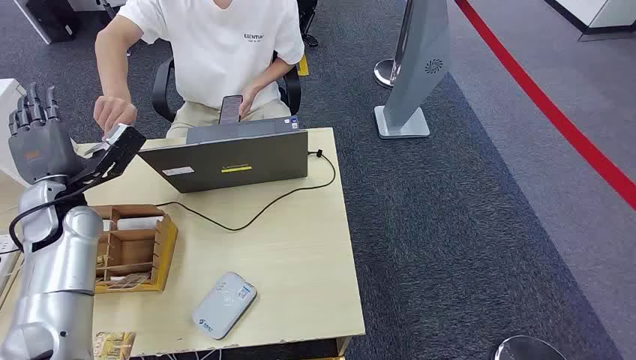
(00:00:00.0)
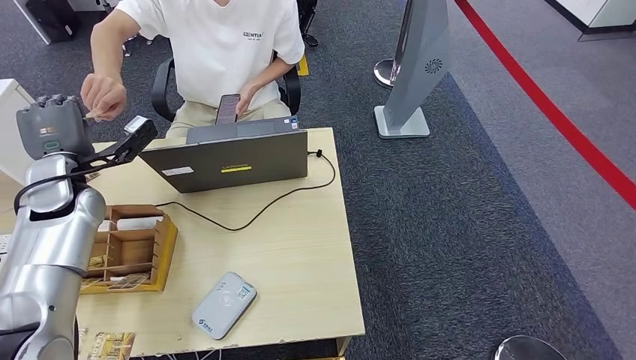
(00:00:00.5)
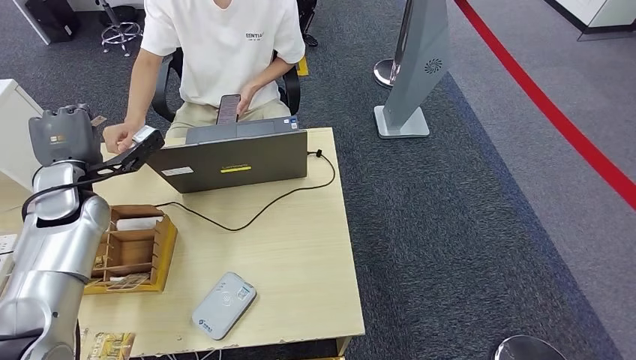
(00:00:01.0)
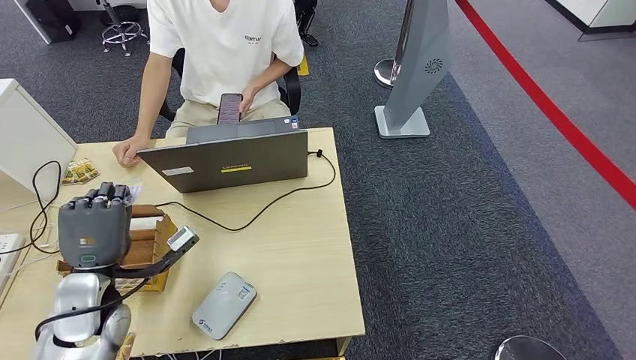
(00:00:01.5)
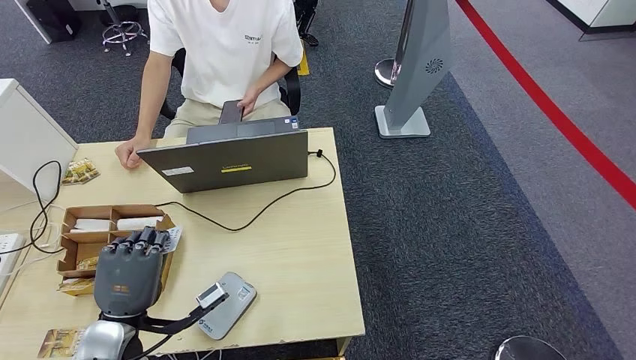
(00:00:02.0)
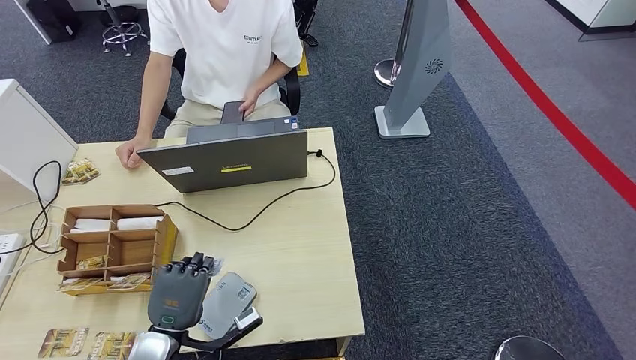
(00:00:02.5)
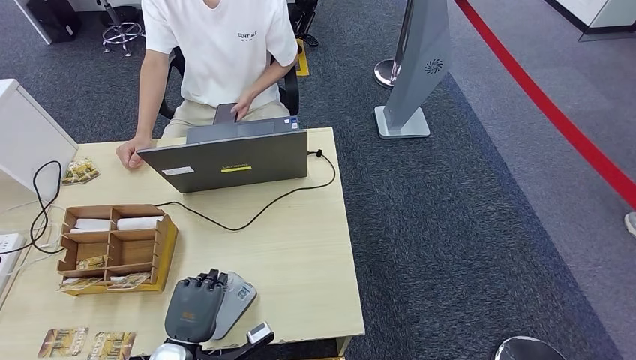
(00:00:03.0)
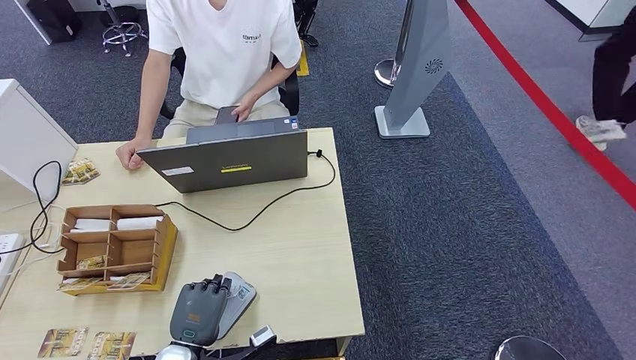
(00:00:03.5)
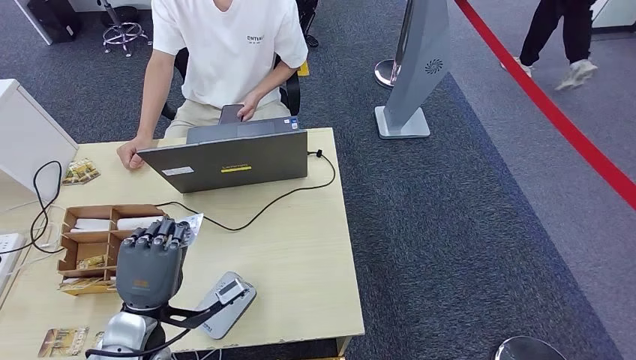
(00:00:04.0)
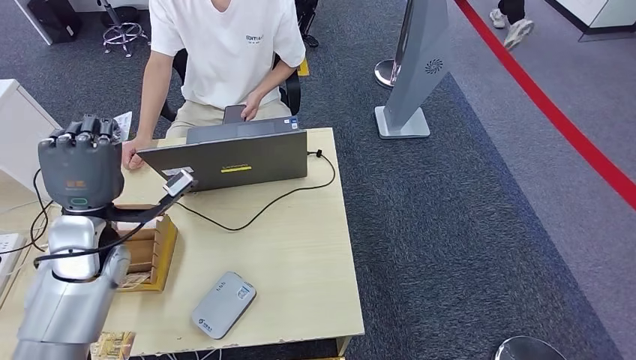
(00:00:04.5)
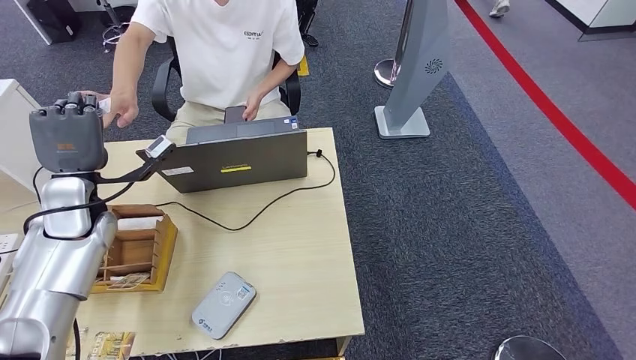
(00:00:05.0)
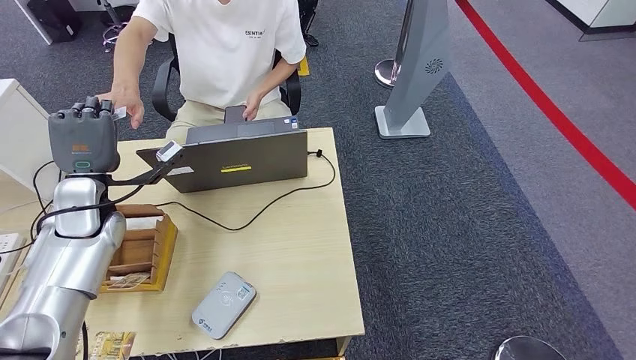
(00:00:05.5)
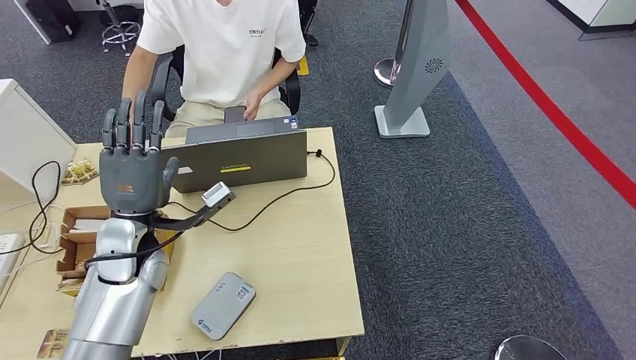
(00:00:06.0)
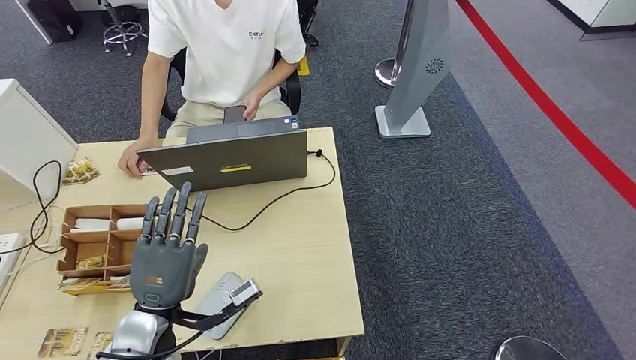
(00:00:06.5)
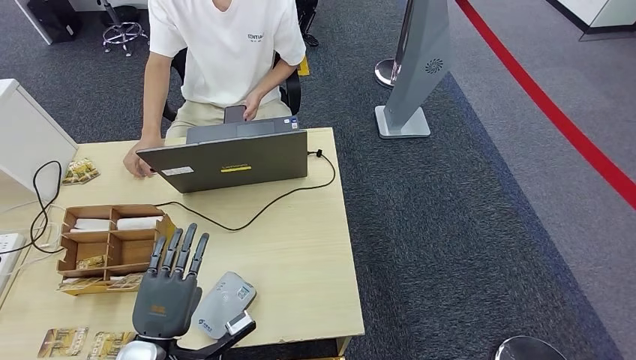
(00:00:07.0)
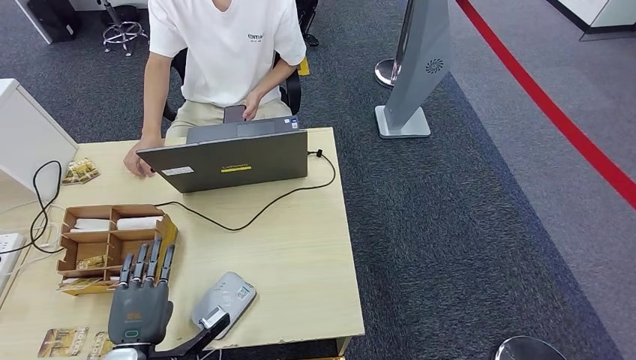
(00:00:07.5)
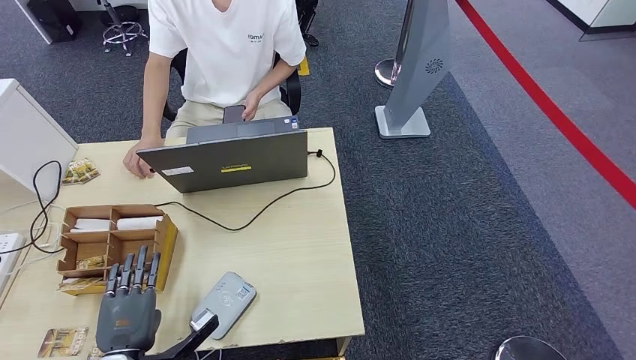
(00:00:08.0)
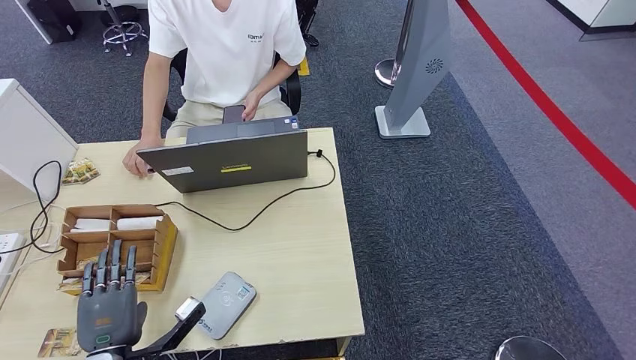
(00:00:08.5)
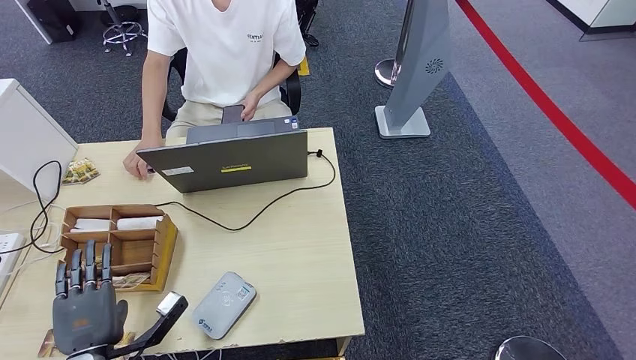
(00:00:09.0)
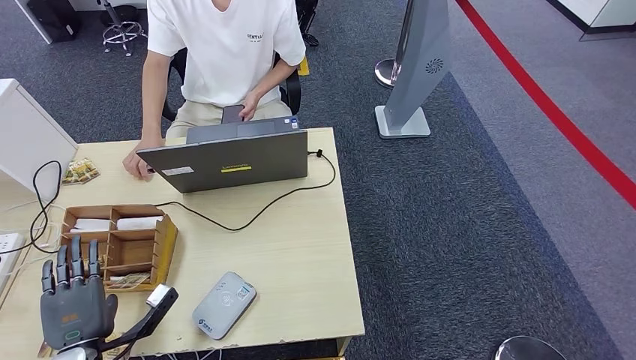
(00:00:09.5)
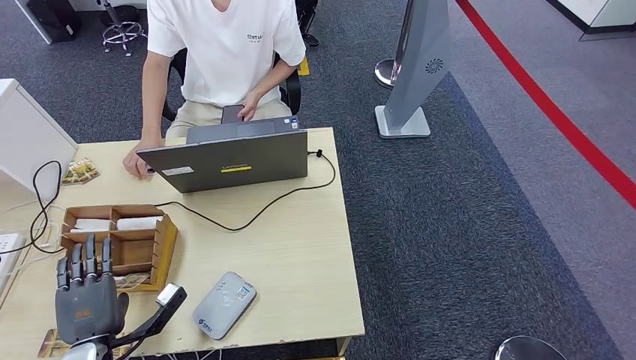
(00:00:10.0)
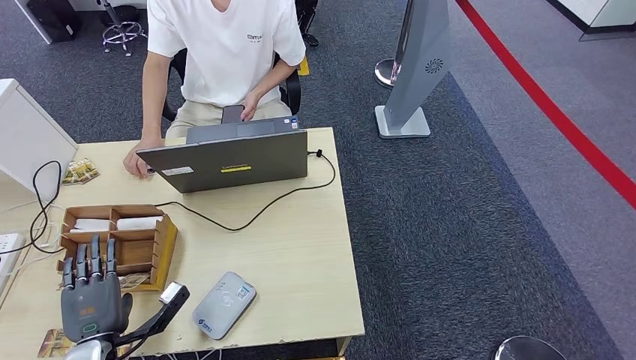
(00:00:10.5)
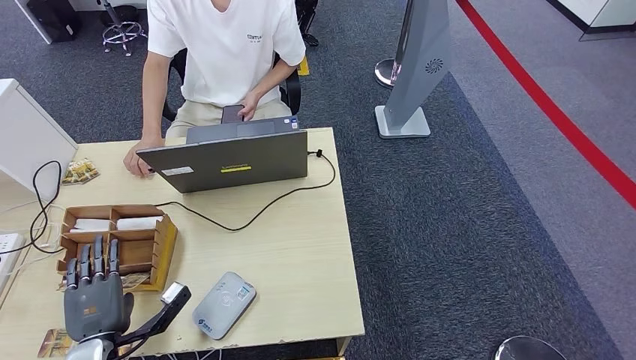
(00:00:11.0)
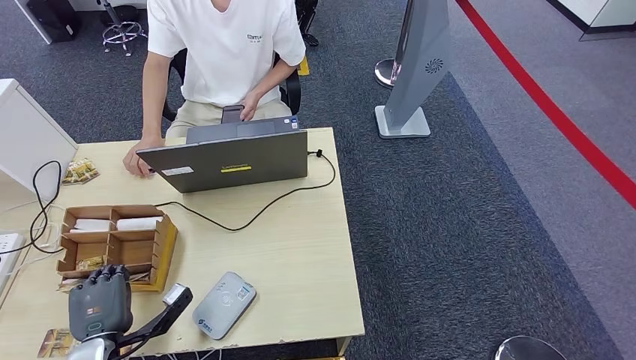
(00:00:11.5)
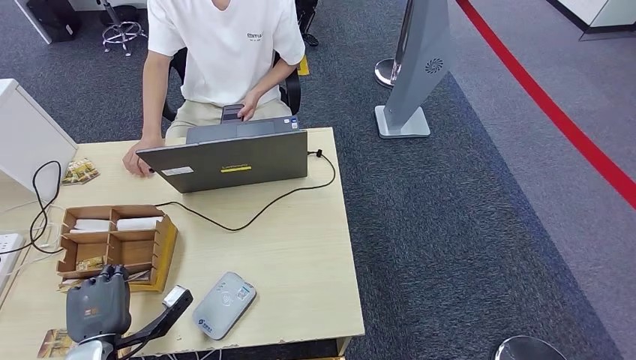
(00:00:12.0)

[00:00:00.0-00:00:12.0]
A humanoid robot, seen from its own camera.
Step, 00:00:00.0 to 00:00:03.0: Take the ID card from the person's hand.
Step, 00:00:03.5 to 00:00:04.5: Place the ID card on the card reader.
Step, 00:00:05.0 to 00:00:06.5: Hand the ID card to the person.
00:00:02.0 to 00:00:04.0: The left hand travels downward and back again, about 10 cm each way.
00:00:04.0 to 00:00:06.0: The left hand goes some 15 cm forward and upward.
00:00:06.0 to 00:00:08.0: The left hand travels backward and downward by roughly 25 cm.
00:00:08.0 to 00:00:12.0: The hands make only small movements.

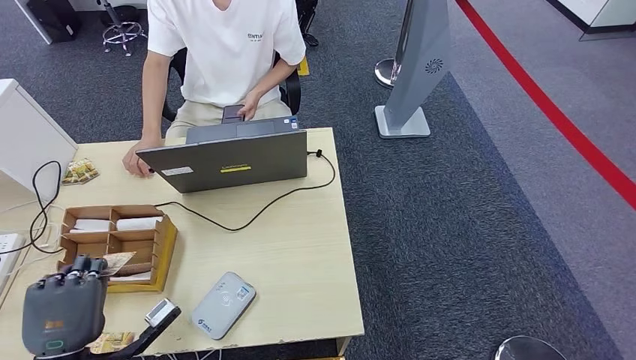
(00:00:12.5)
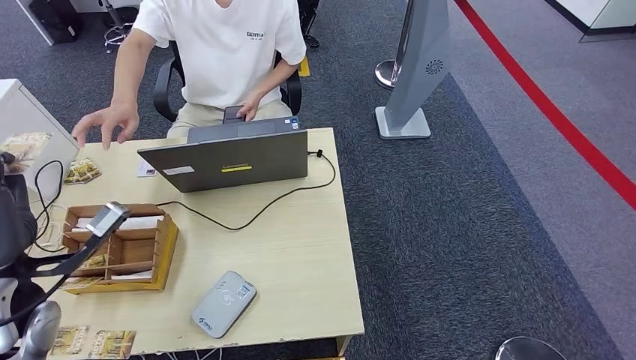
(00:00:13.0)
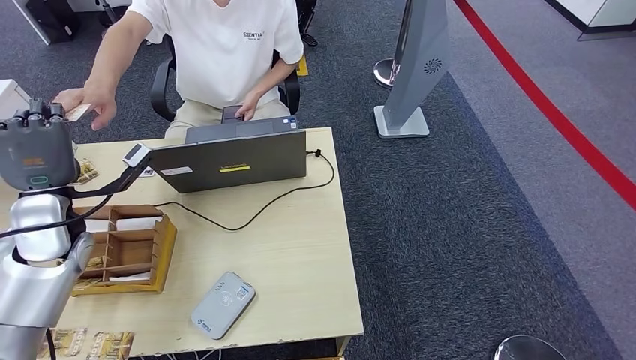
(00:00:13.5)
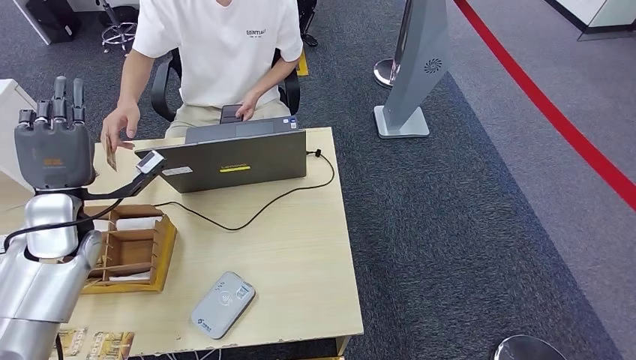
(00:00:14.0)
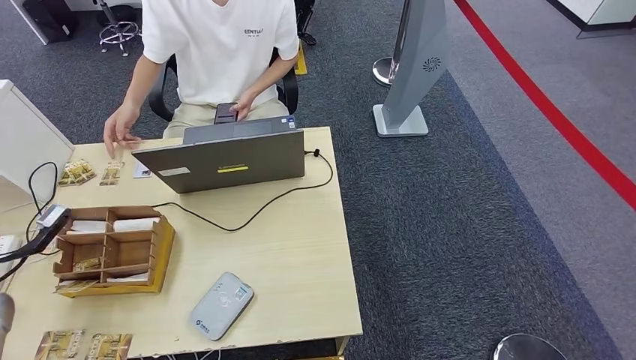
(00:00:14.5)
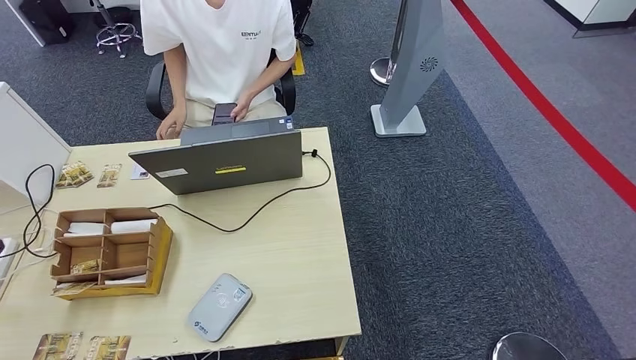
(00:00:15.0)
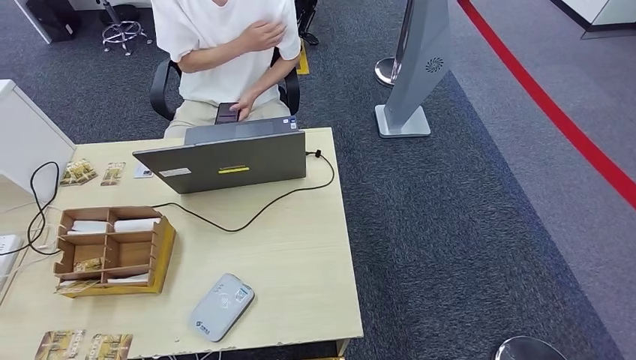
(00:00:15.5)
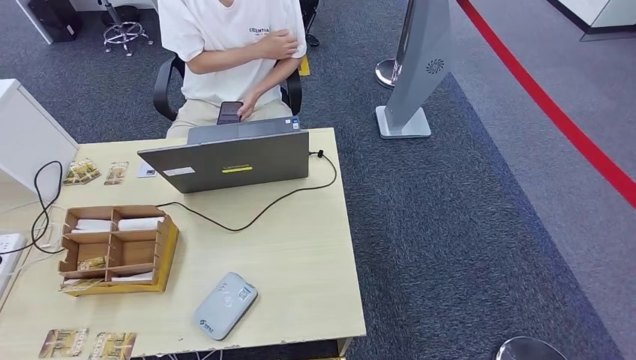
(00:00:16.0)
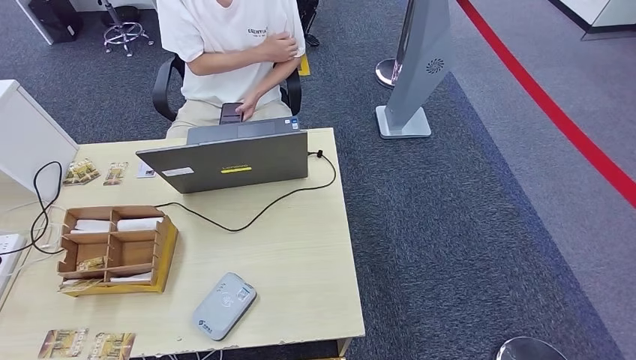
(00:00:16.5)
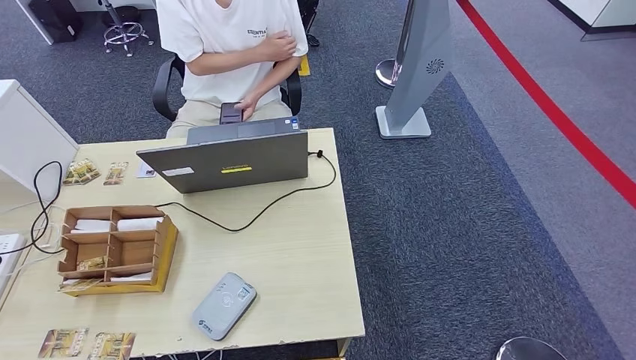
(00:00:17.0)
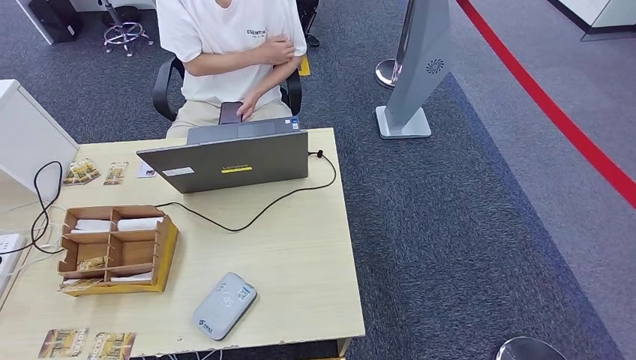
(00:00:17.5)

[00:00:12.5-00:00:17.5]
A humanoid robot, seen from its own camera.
Step, 00:00:13.0 to 00:00:17.5: Hand the room key to the person.
00:00:12.5 to 00:00:15.0: The left hand shifts approximately 25 cm to the left.
00:00:15.0 to 00:00:17.5: The left hand goes roughly 50 cm downward, backward and to the right. The right hand ends up roughly 5 cm from where it was.

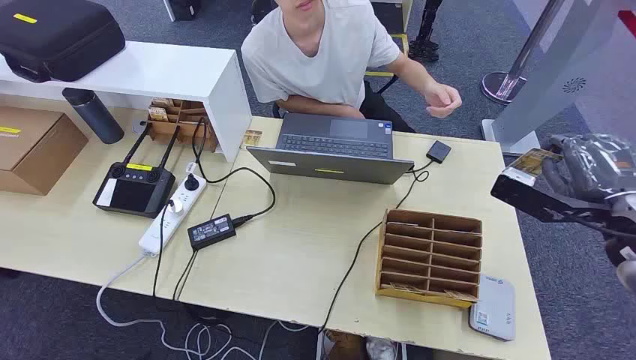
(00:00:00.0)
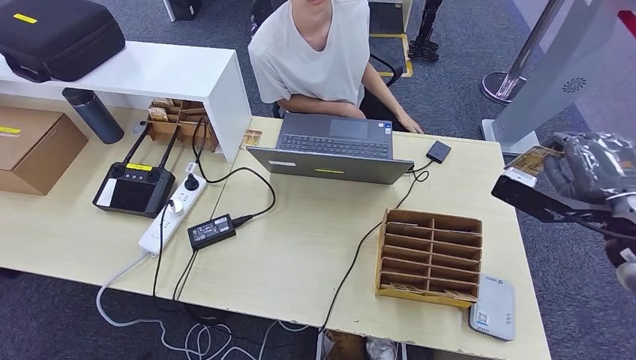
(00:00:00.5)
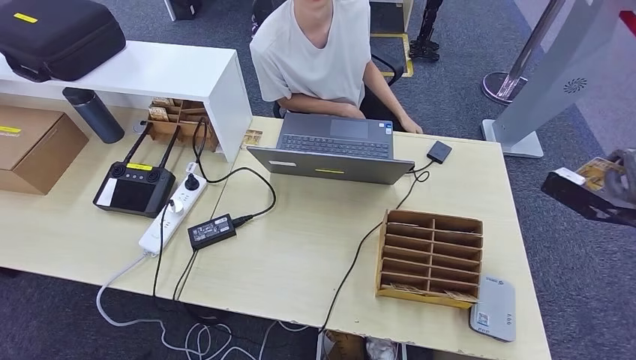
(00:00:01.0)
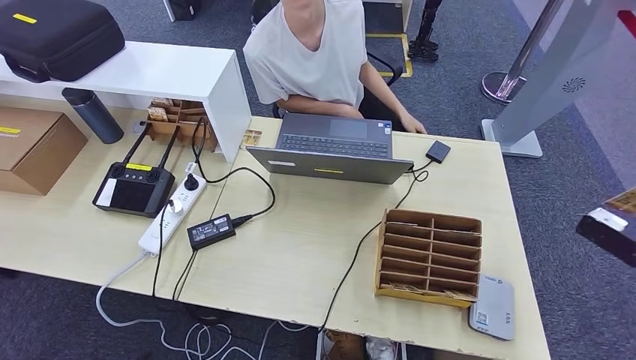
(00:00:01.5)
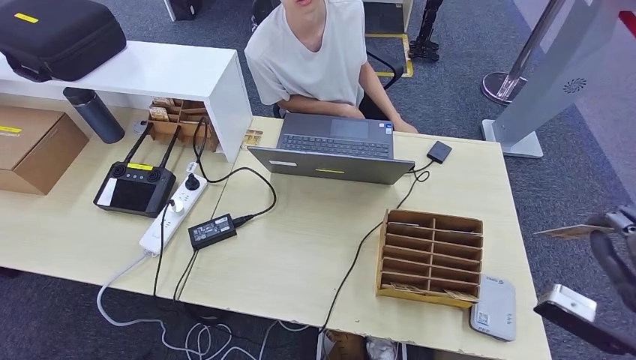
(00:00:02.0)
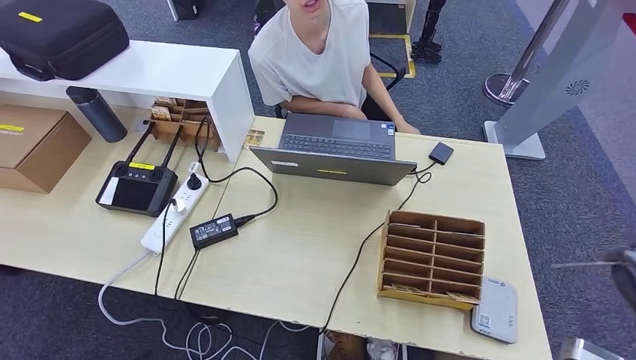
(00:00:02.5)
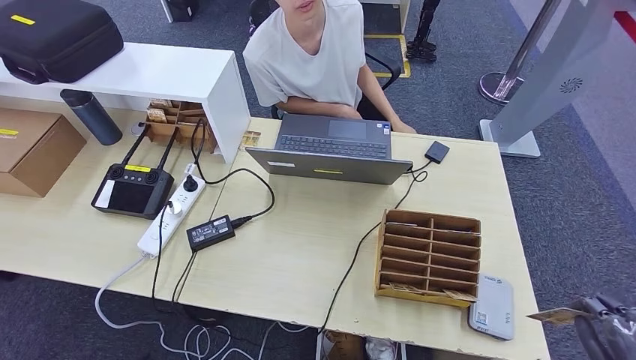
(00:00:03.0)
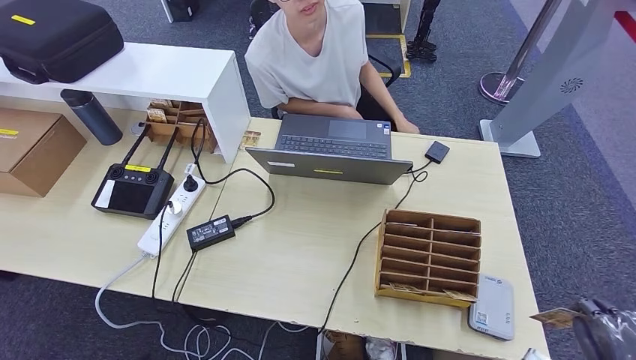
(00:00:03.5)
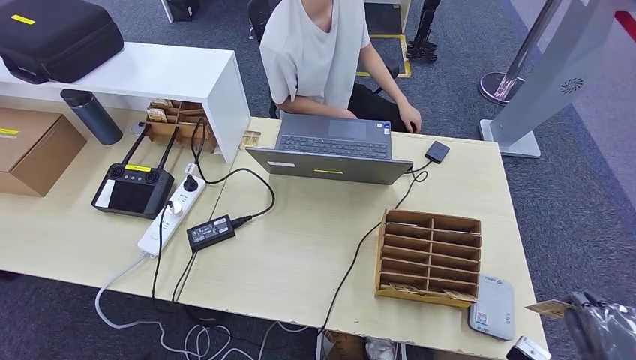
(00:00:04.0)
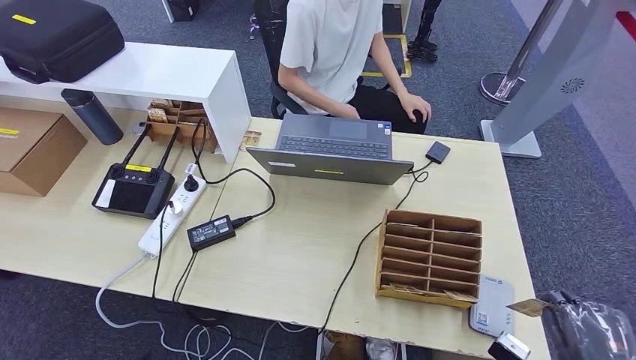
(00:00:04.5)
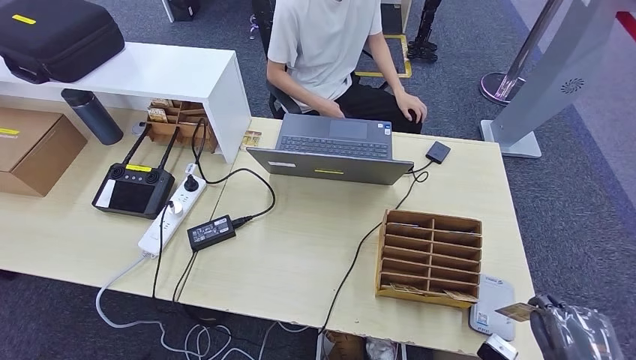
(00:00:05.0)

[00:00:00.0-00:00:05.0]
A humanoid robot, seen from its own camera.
Step, 00:00:00.0 to 00:00:01.0: Take the ID card from the person's hand.
00:00:02.5 to 00:00:05.0: The right hand goes some 20 cm downward.
